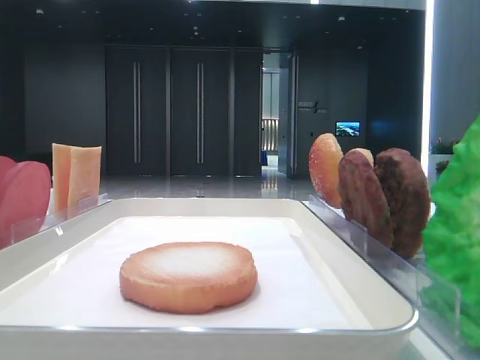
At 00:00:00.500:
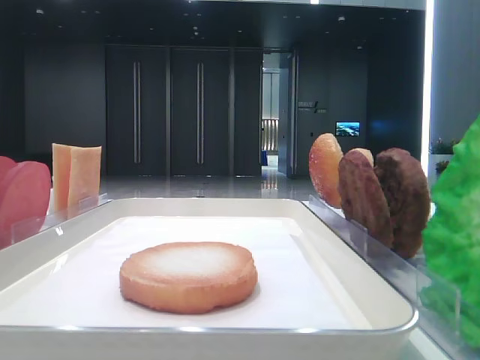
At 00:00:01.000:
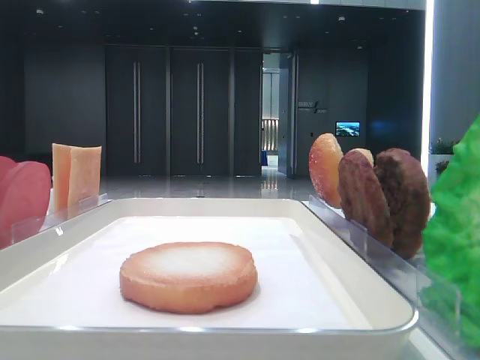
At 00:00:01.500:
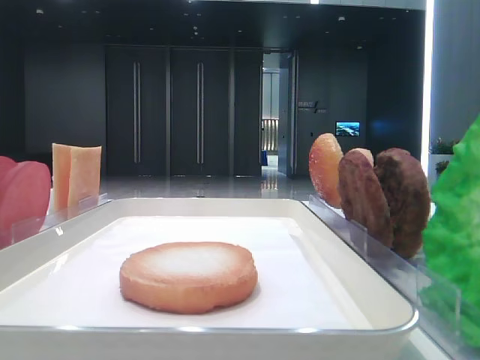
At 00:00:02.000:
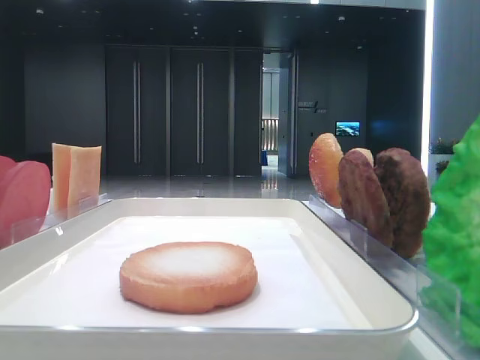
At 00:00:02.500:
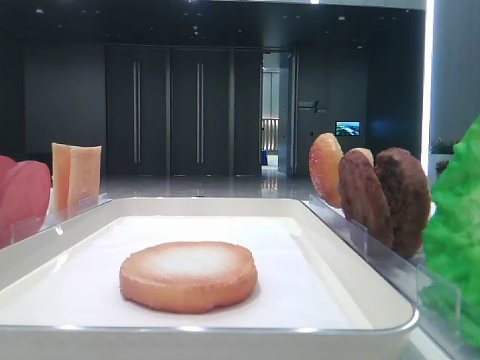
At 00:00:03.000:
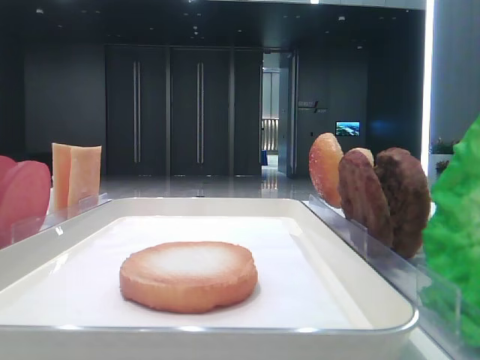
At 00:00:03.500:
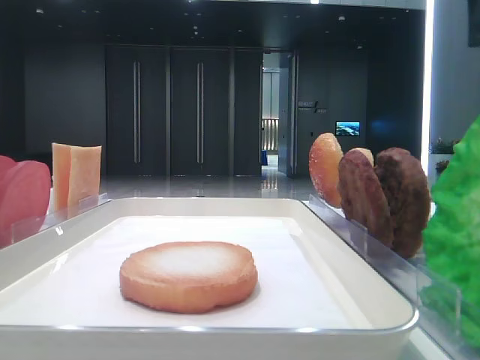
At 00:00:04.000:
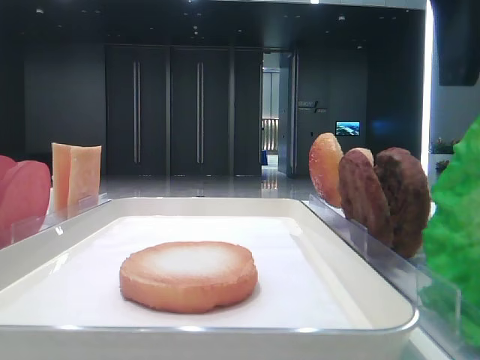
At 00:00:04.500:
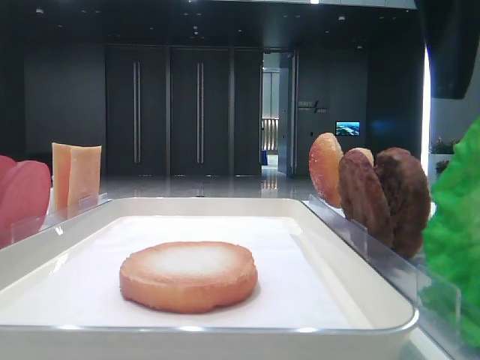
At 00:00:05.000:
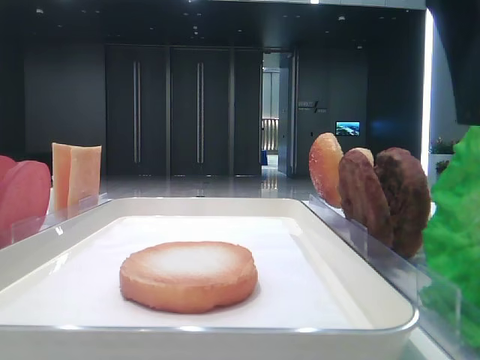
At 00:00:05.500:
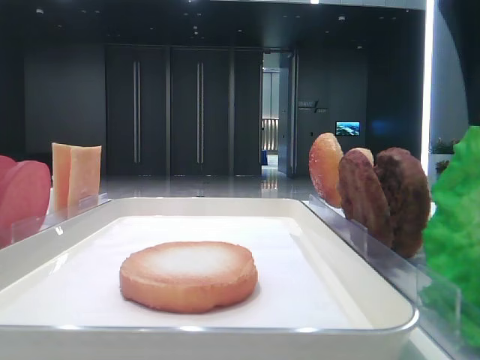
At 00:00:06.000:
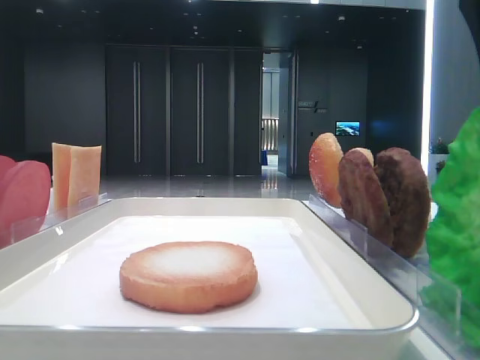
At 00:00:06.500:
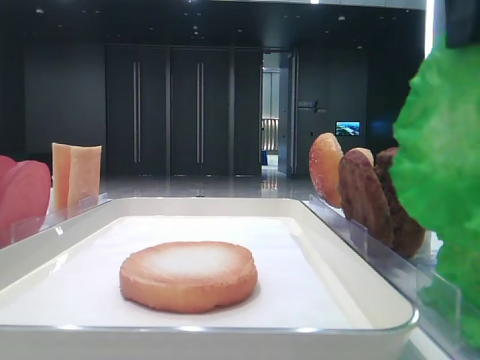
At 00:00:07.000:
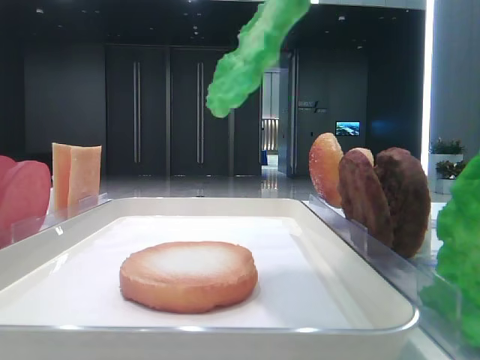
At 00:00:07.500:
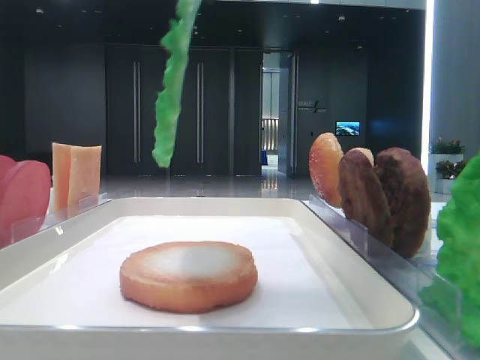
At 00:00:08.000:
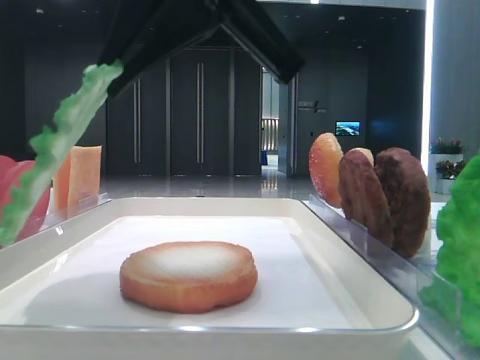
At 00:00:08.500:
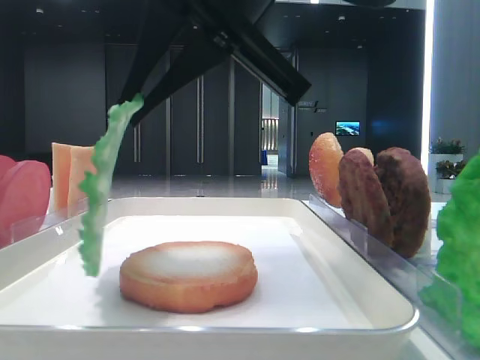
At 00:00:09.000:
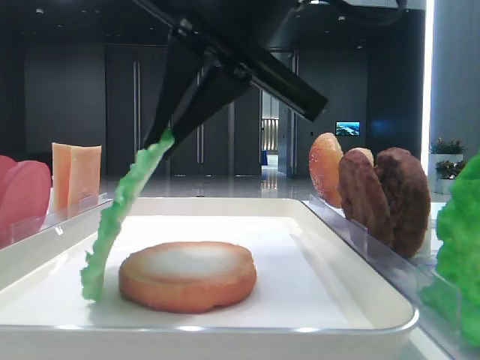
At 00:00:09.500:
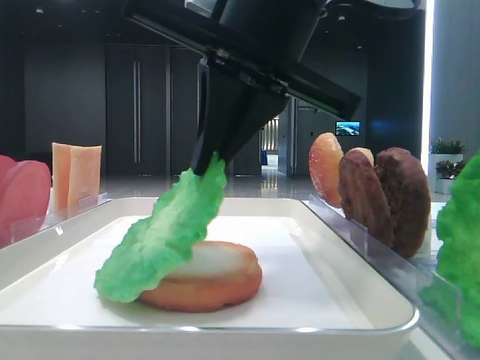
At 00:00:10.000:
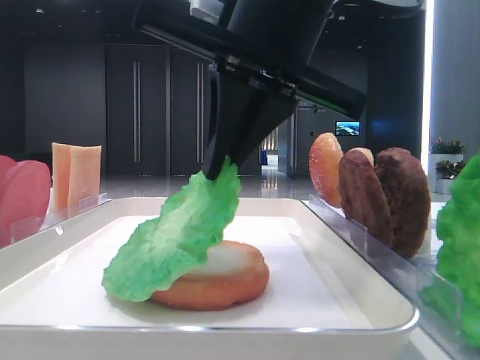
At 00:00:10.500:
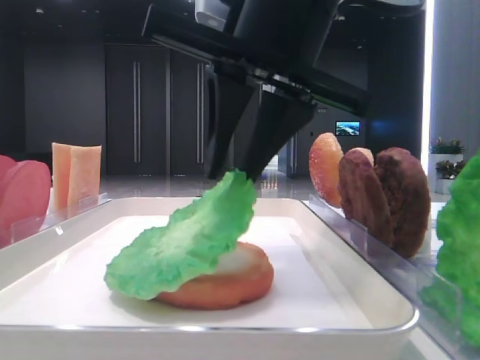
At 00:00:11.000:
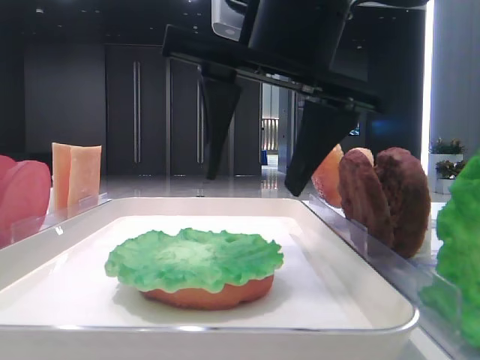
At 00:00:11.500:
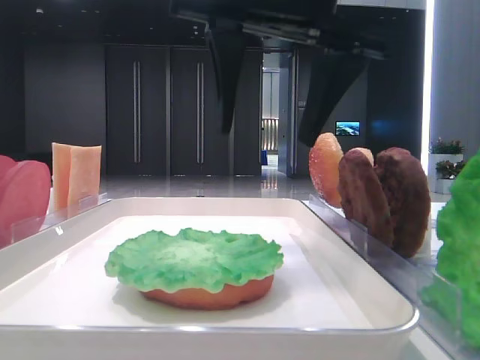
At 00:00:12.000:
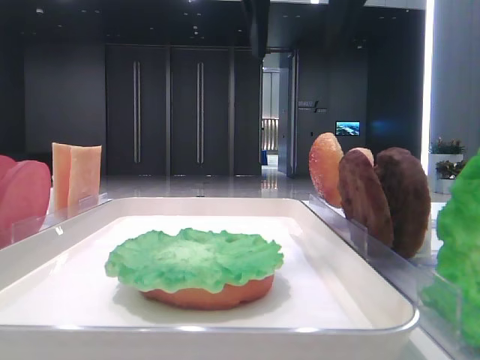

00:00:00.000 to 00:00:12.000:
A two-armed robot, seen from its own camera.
Step, 00:00:00.000 to 00:00:05.500: Grab the lettuce leaf with the right hand.
Step, 00:00:06.000 to 00:00:10.500: Place the lettuce leaf on the bread slice with the right hand.
00:00:02.000 to 00:00:04.000: The right gripper goes approximately 15 cm to the left and forward.
00:00:04.000 to 00:00:06.000: The right gripper closes up.
00:00:06.000 to 00:00:08.000: The left gripper closes its fingers. Meanwhile the right gripper travels to the left by approximately 15 cm.
00:00:08.000 to 00:00:10.000: The right gripper changes place by some 5 cm.
00:00:10.000 to 00:00:12.000: The right gripper moves upward, about 10 cm, and opens.

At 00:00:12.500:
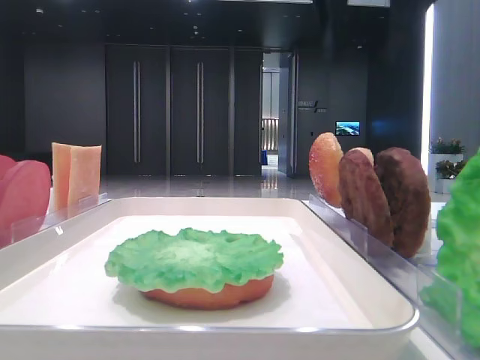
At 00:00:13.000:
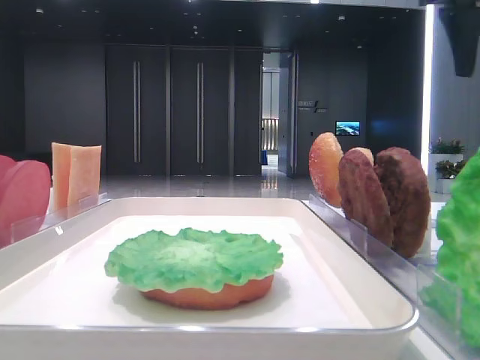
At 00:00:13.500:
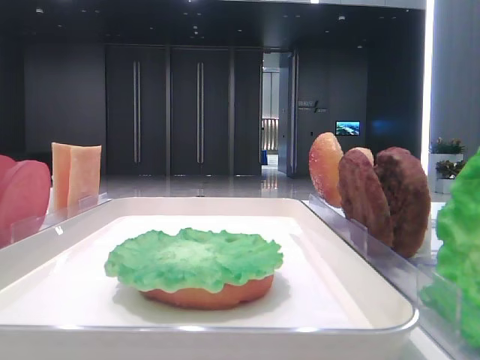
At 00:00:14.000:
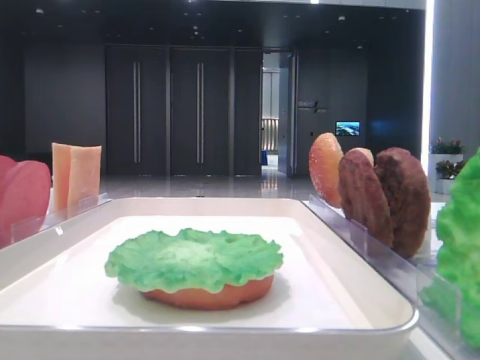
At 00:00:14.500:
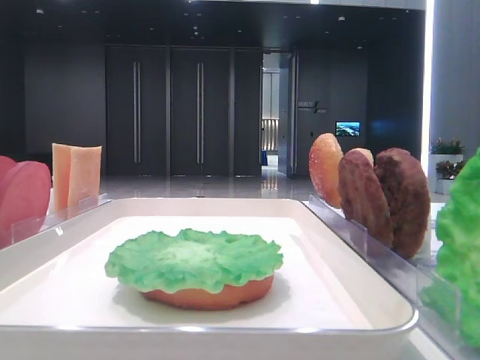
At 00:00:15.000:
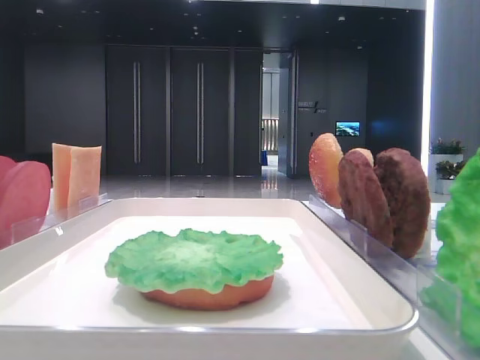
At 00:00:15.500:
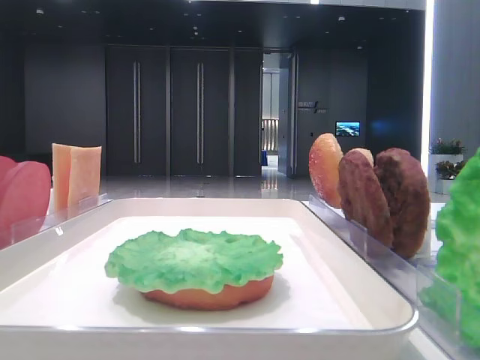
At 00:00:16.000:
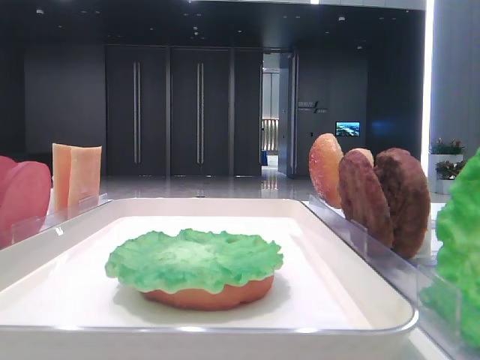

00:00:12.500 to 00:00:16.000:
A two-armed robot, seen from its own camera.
00:00:12.500 to 00:00:14.500: The right gripper is displaced backward and to the right by approximately 30 cm.
